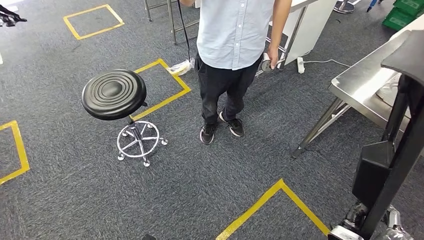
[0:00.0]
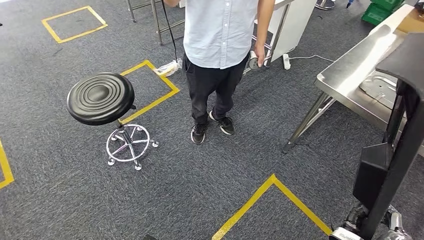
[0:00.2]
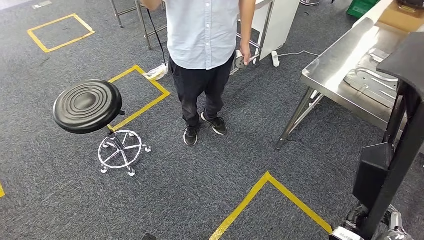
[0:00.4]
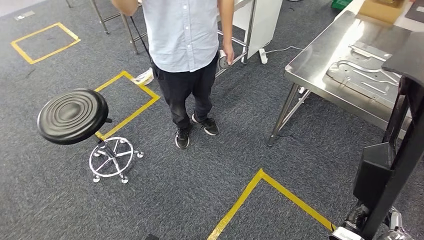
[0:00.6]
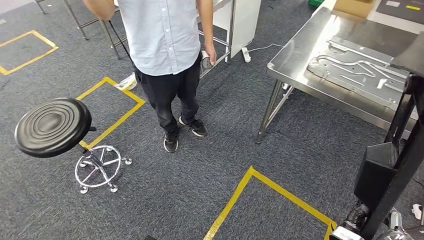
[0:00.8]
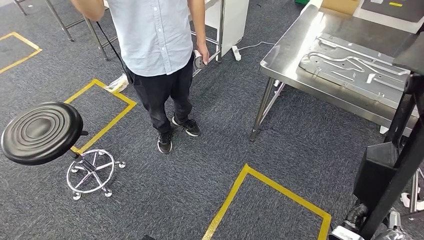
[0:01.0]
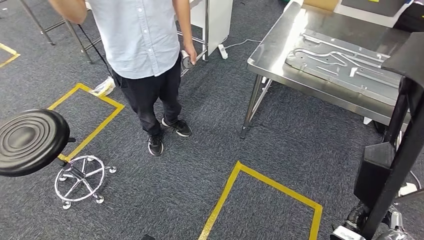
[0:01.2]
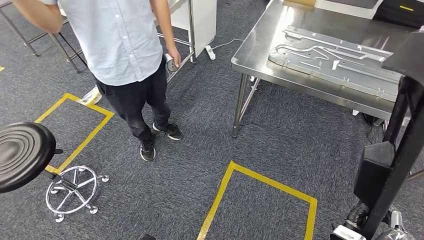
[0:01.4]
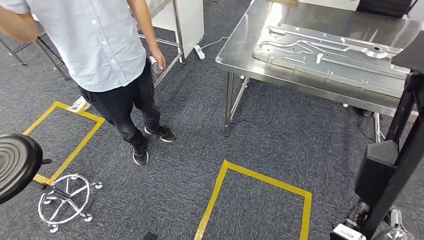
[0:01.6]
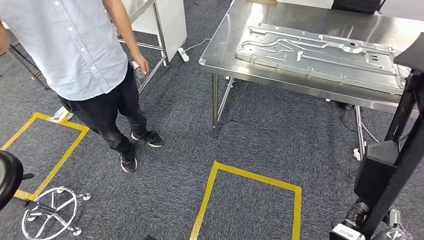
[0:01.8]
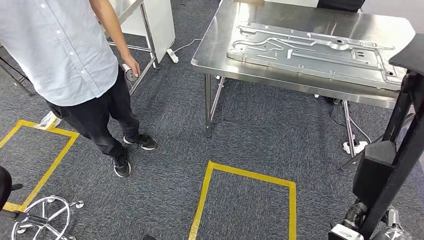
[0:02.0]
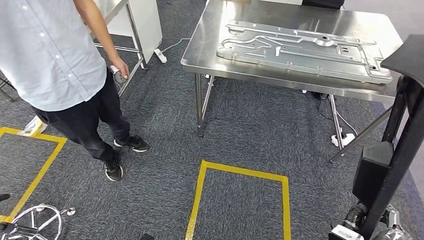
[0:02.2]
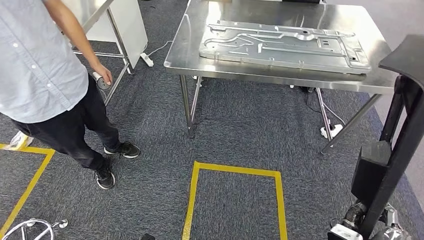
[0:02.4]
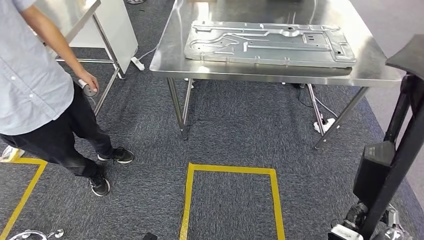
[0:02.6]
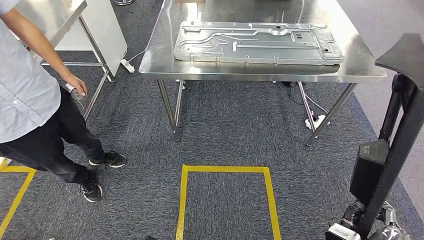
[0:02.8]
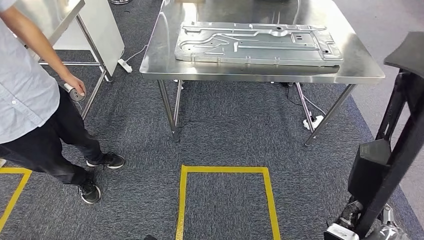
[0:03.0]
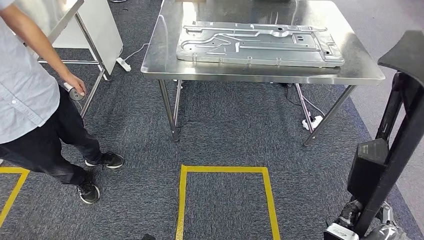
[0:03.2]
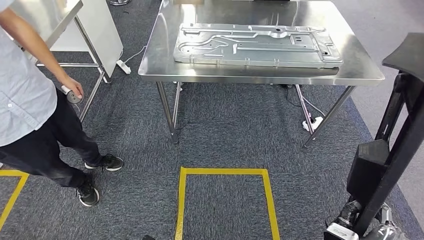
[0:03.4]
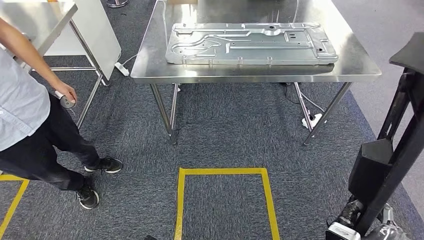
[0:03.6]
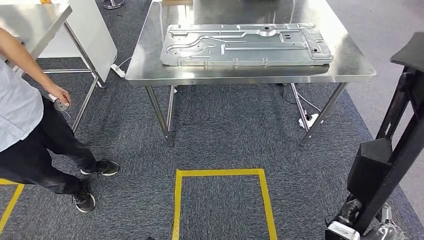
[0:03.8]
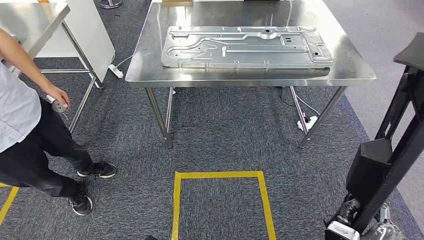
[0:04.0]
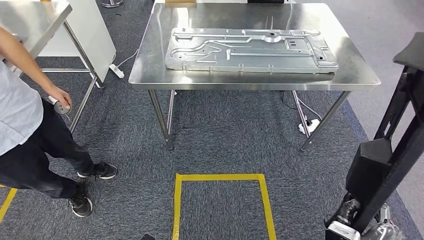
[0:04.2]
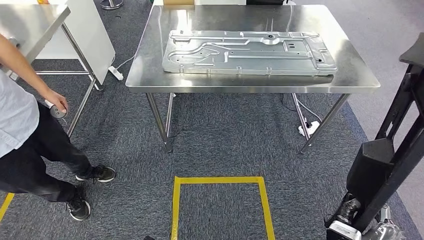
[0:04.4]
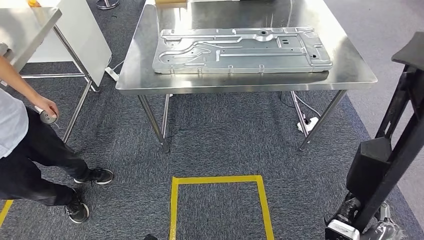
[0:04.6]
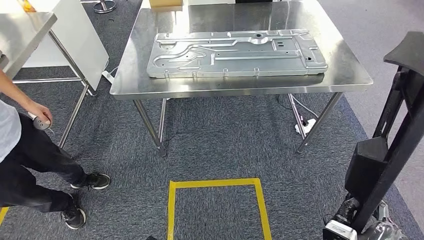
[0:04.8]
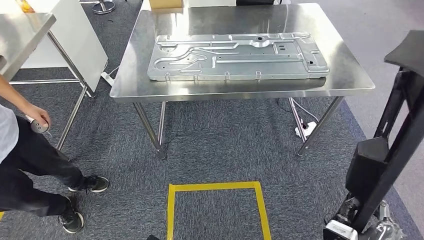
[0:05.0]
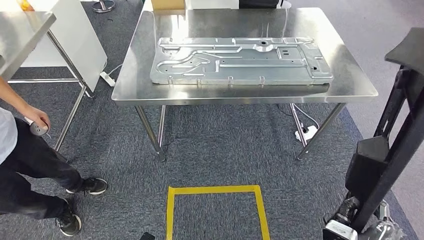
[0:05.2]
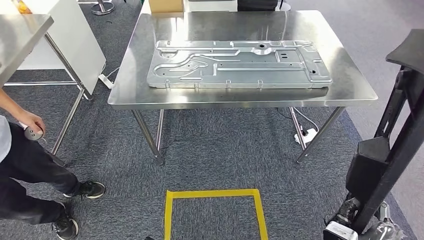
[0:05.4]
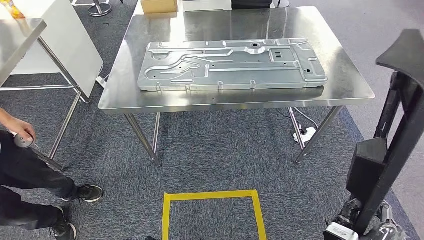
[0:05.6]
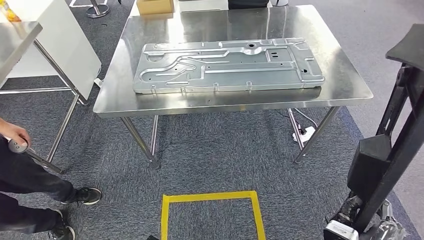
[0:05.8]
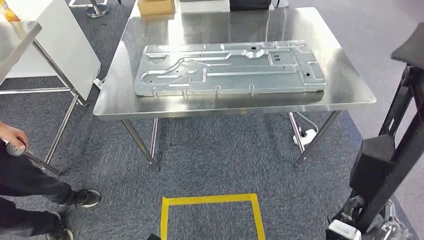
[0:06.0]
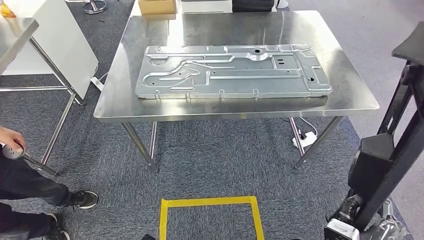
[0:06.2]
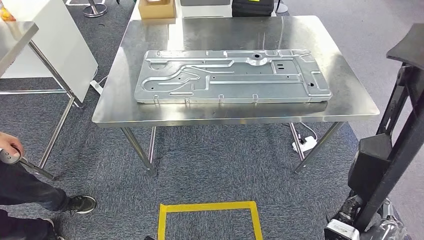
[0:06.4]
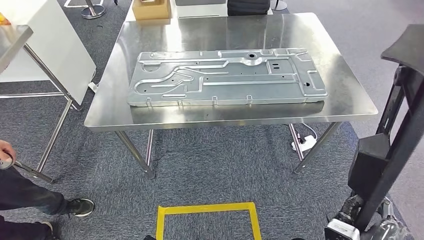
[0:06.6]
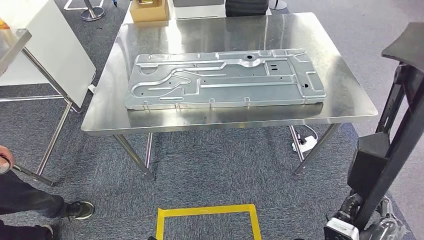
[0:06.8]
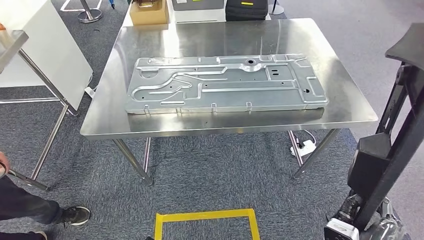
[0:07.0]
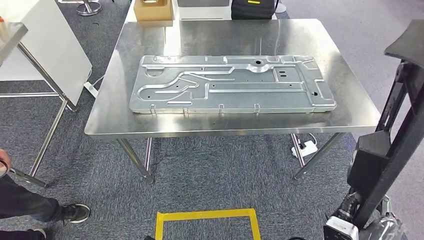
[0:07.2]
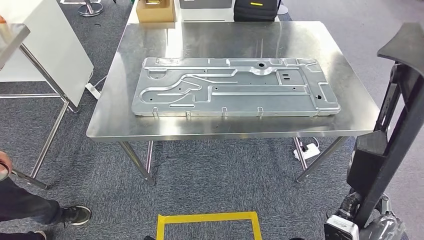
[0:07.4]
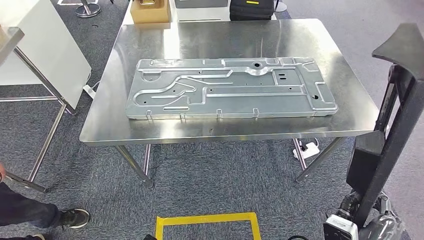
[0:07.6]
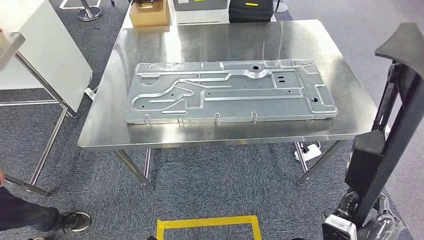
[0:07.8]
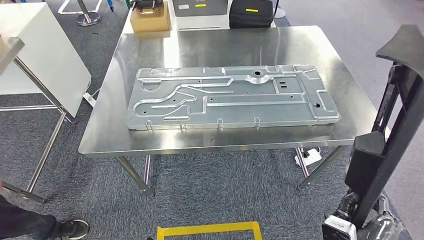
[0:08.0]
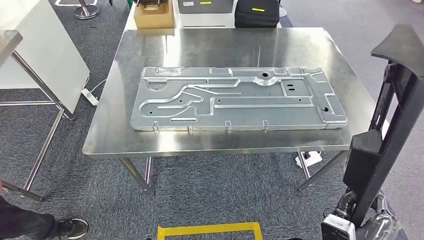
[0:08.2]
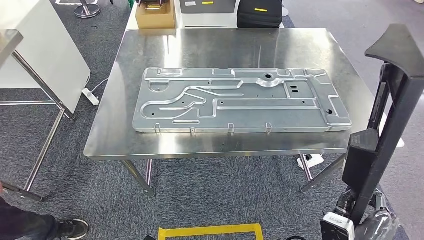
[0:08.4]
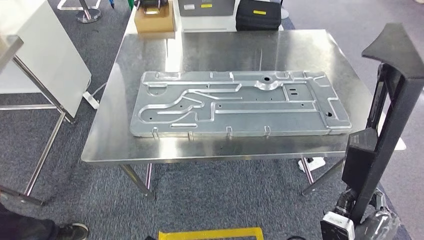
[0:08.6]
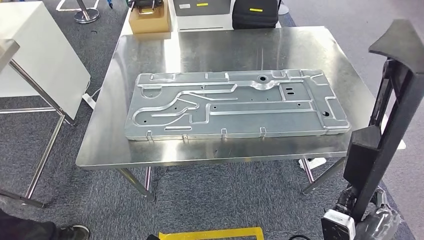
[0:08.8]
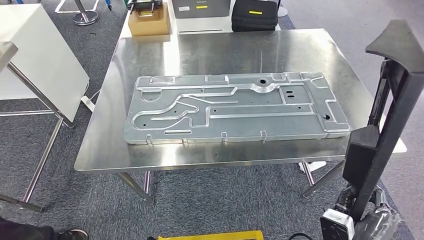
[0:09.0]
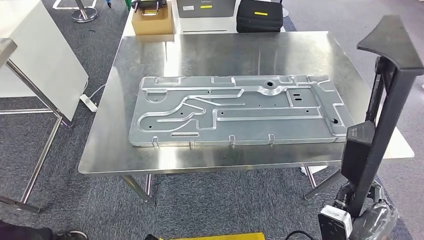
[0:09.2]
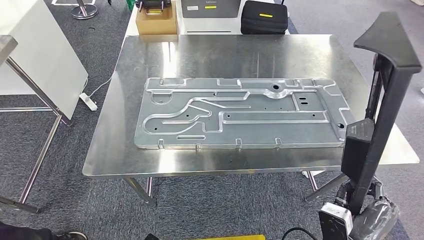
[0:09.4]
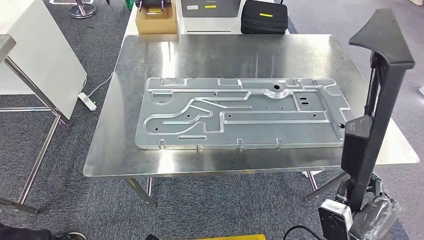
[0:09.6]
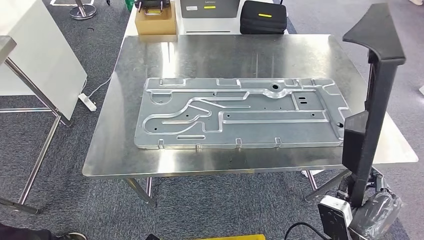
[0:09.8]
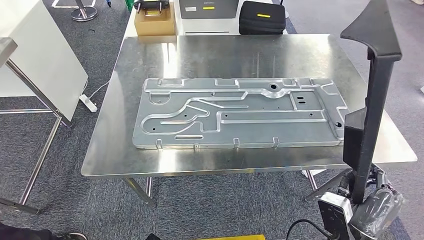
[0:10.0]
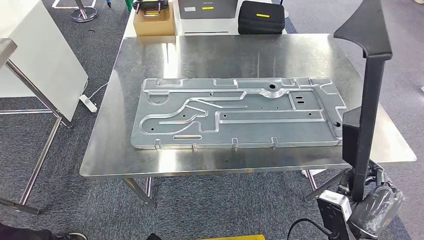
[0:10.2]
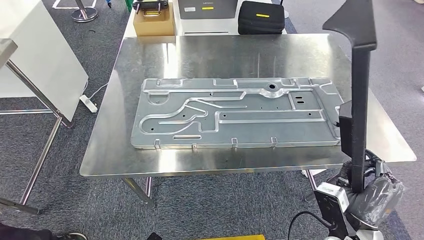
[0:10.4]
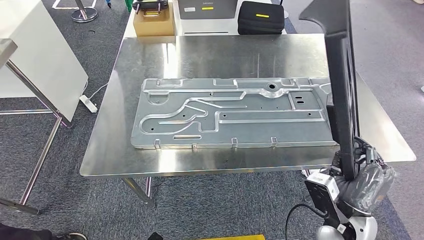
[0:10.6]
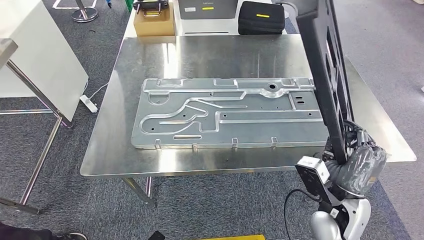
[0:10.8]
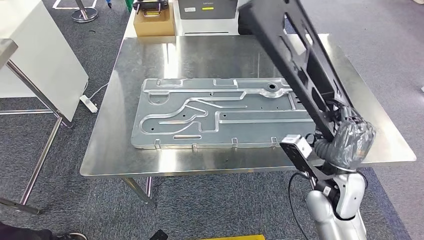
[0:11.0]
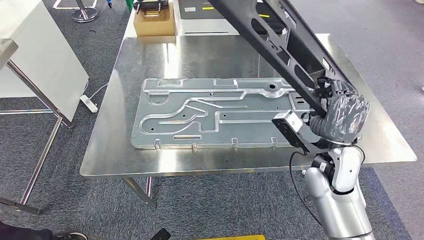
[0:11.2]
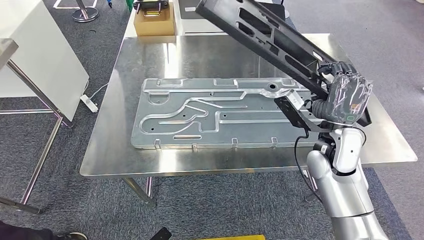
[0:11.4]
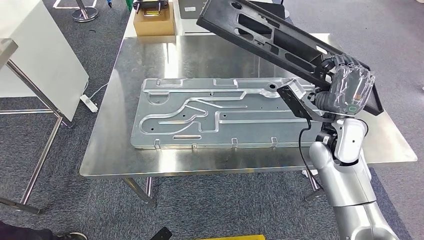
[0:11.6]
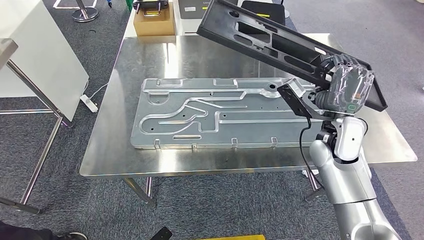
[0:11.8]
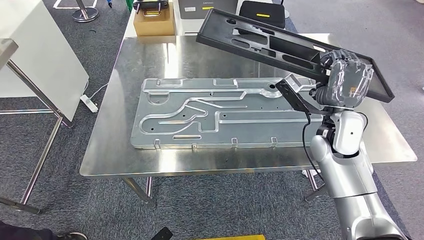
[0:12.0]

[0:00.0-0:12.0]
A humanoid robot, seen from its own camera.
Step, 0:00.0 to 0:07.6: Move the large material to the workbench.
0:10.4 to 0:12.0: The right hand goes approximately 25 cm forward and upward.

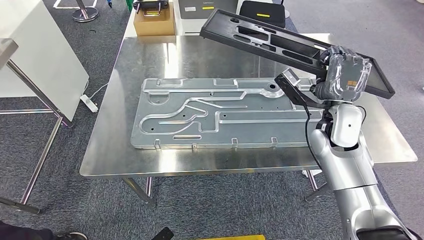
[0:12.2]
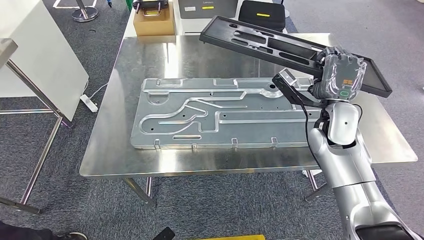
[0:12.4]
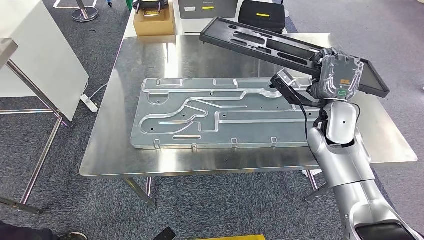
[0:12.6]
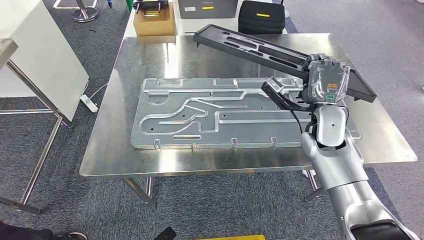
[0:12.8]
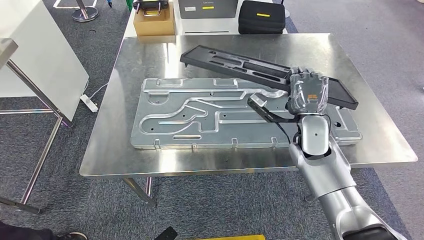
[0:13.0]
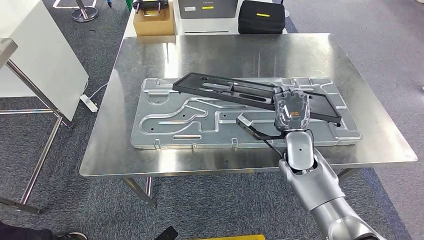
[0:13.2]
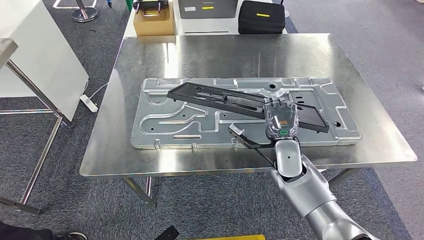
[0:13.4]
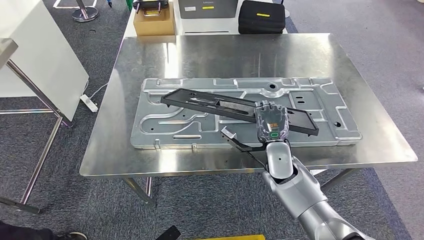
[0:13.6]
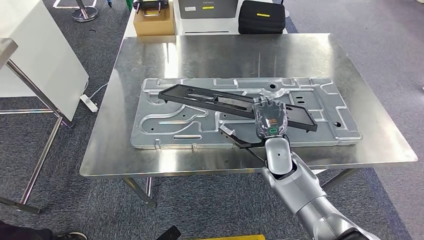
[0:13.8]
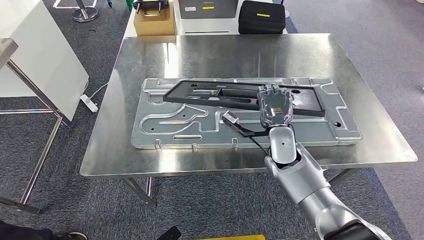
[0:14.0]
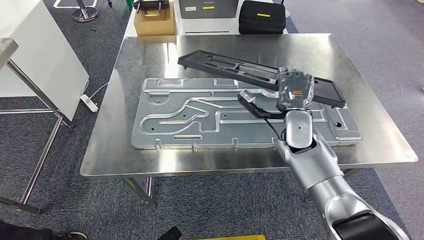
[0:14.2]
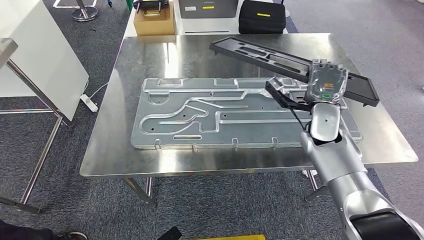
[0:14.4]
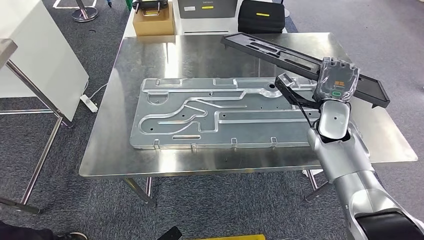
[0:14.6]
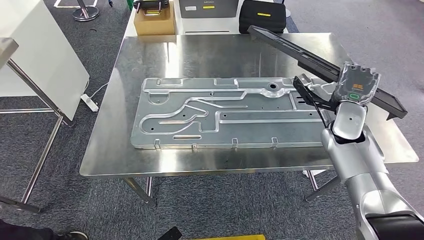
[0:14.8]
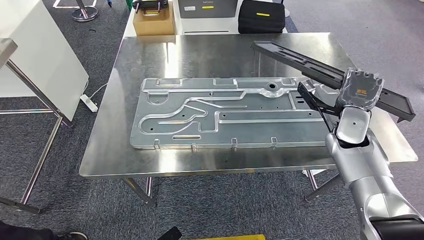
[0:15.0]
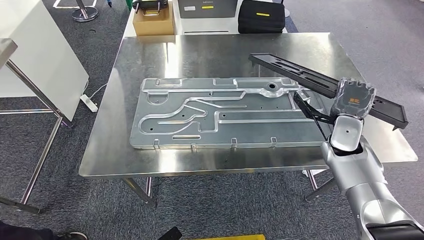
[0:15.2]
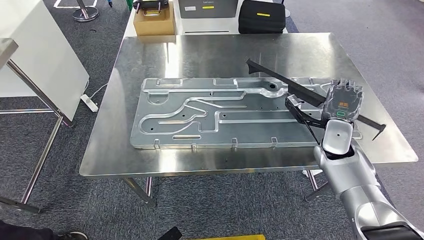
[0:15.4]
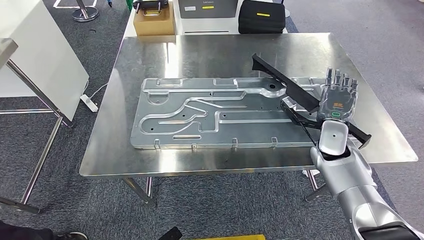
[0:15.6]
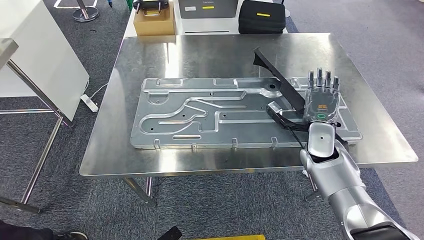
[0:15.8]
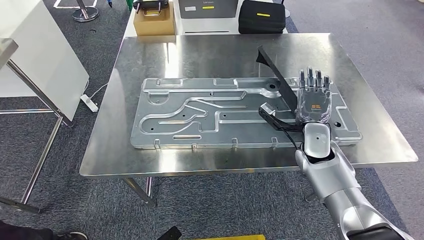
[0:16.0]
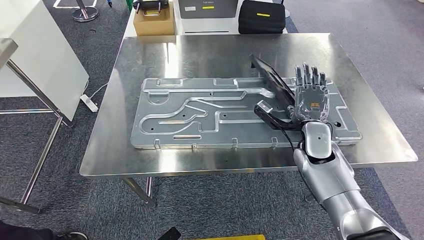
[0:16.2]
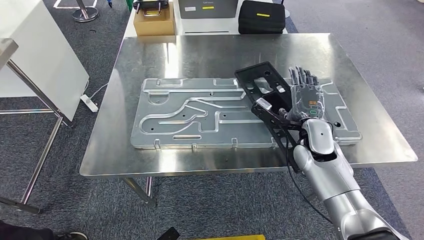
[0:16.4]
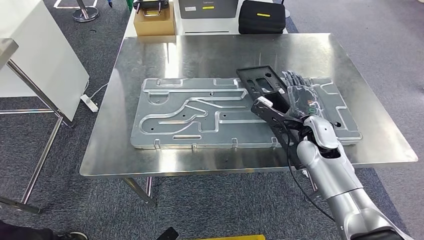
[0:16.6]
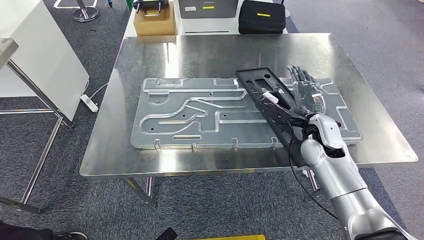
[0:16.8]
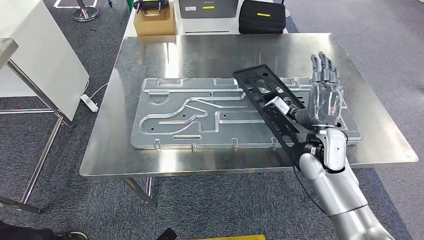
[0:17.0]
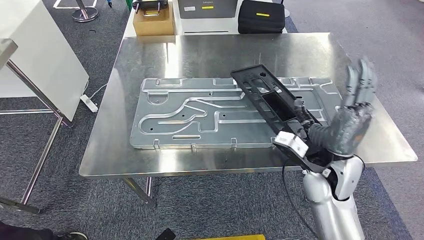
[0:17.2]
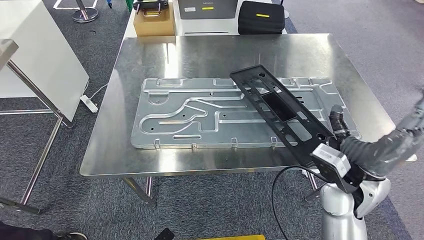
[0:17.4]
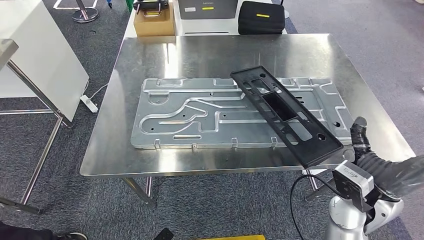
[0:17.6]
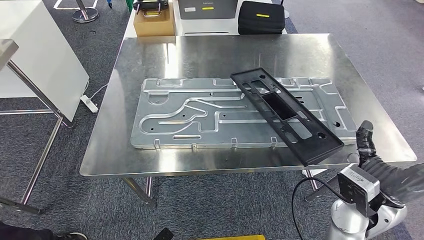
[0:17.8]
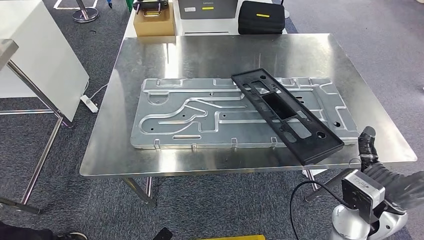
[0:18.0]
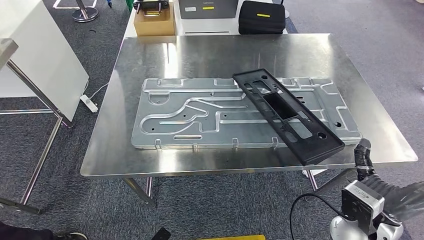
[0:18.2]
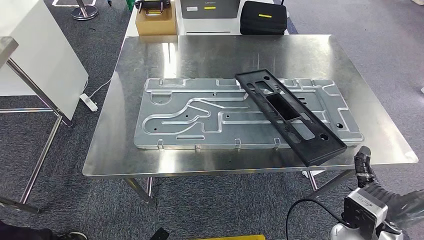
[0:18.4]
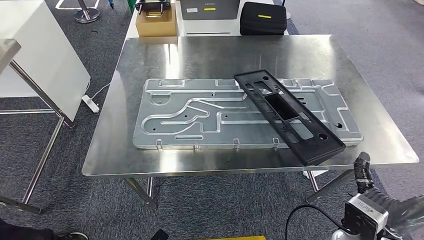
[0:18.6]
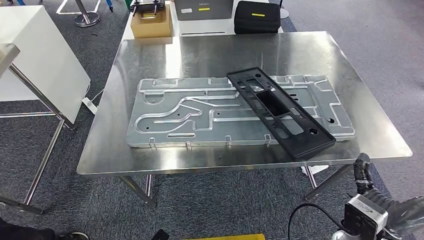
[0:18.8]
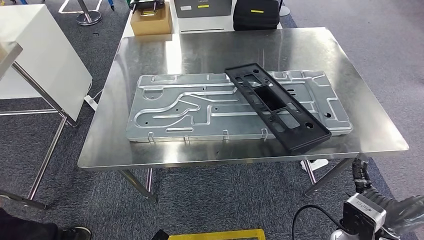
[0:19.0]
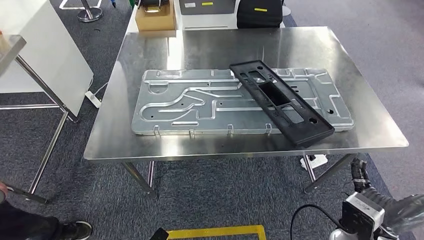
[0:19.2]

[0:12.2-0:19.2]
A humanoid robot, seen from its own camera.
Step, 0:12.2 to 0:18.4: Insert the large material into the corresponding slot on the workbench.
0:13.6 to 0:15.0: The right hand travels to the right and upward by approximately 20 cm.
0:15.0 to 0:16.4: The right hand shifts roughly 10 cm to the left.
0:16.4 to 0:17.8: The right hand is displaced backward by about 15 cm.
